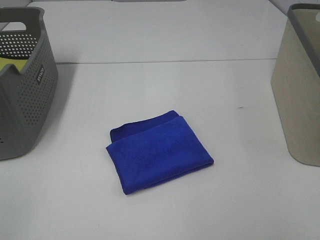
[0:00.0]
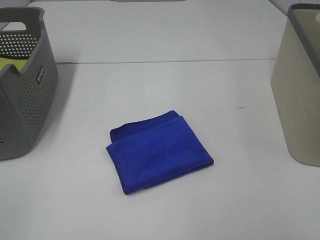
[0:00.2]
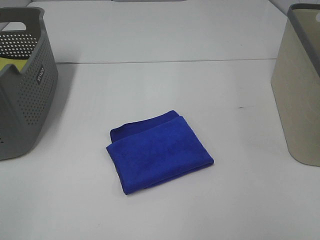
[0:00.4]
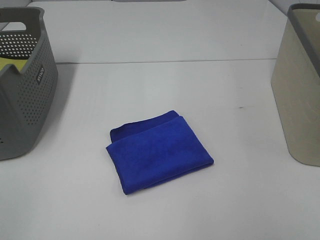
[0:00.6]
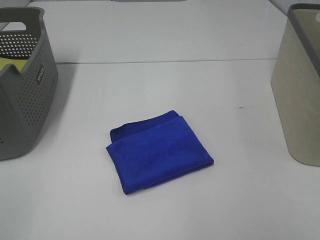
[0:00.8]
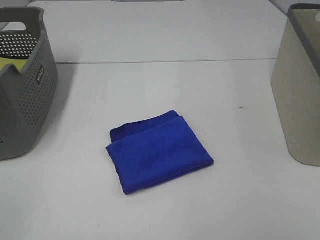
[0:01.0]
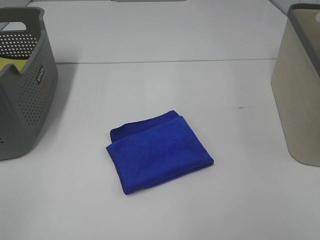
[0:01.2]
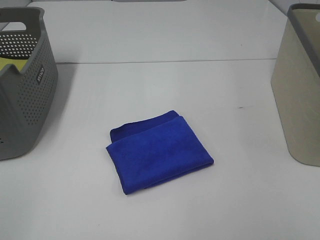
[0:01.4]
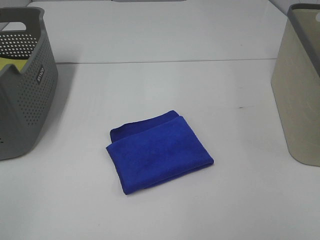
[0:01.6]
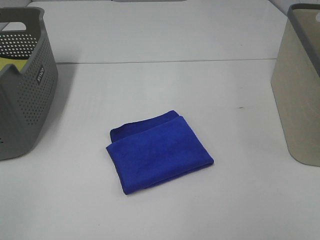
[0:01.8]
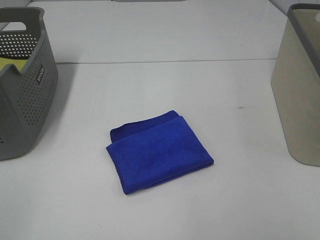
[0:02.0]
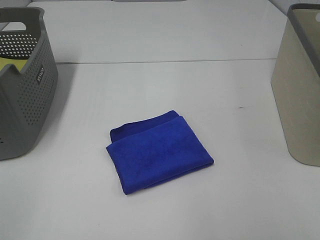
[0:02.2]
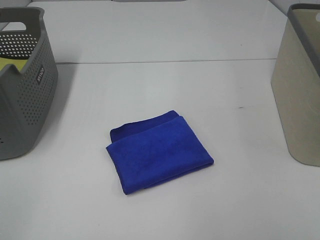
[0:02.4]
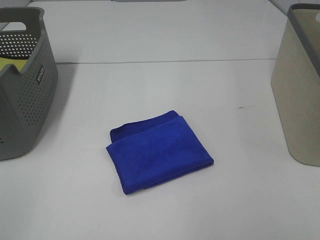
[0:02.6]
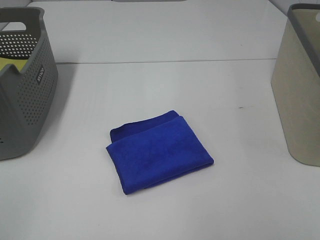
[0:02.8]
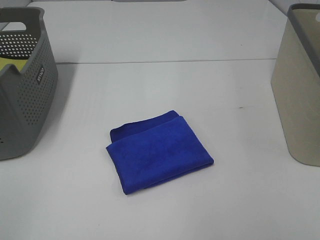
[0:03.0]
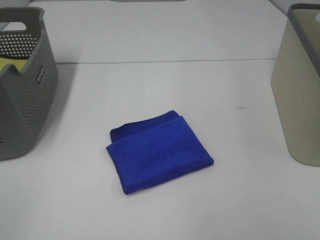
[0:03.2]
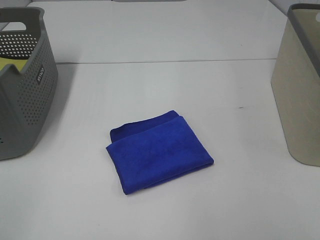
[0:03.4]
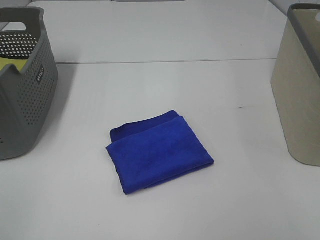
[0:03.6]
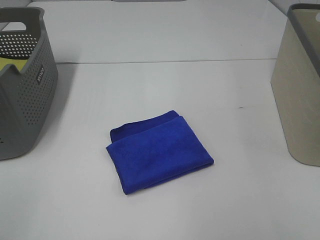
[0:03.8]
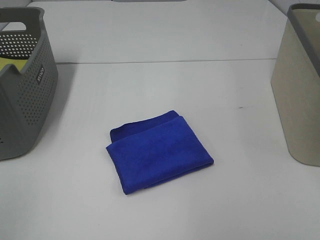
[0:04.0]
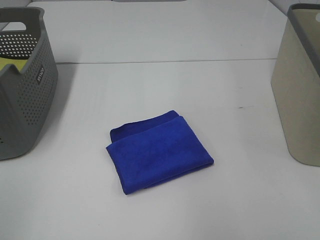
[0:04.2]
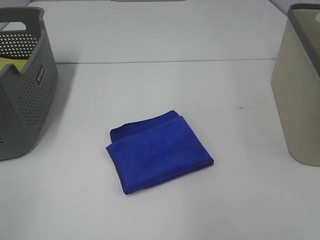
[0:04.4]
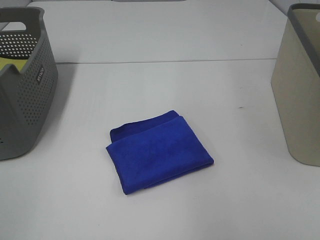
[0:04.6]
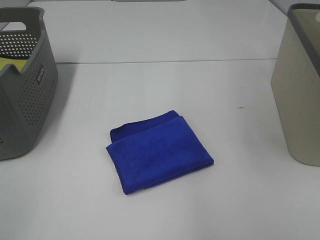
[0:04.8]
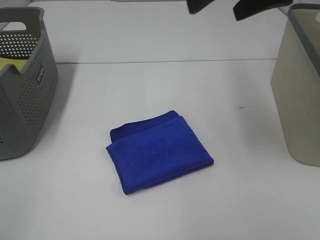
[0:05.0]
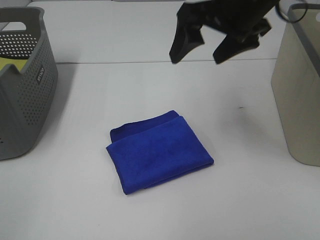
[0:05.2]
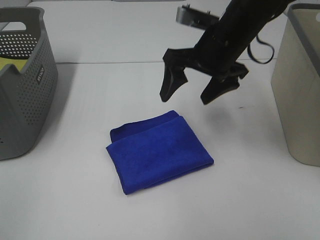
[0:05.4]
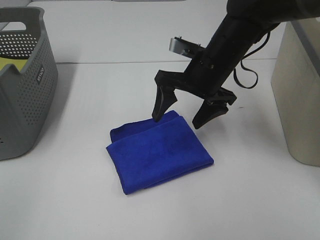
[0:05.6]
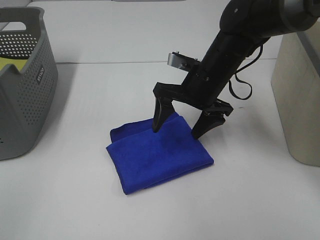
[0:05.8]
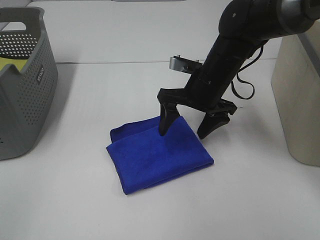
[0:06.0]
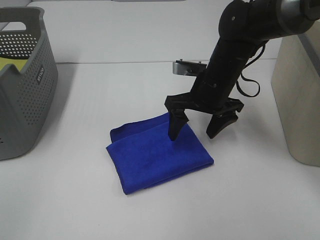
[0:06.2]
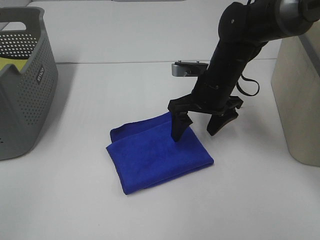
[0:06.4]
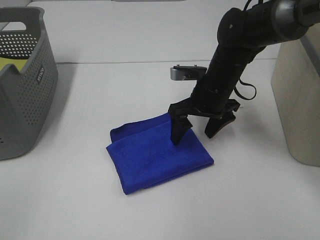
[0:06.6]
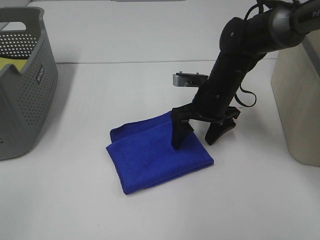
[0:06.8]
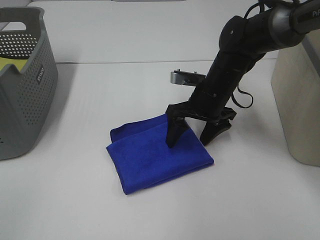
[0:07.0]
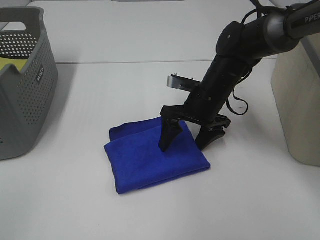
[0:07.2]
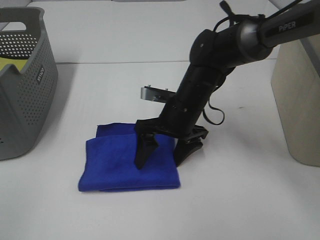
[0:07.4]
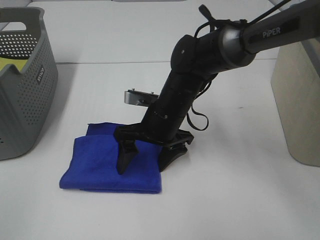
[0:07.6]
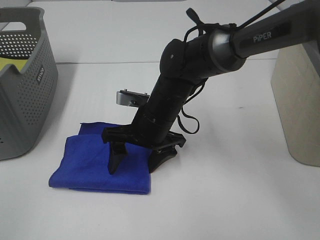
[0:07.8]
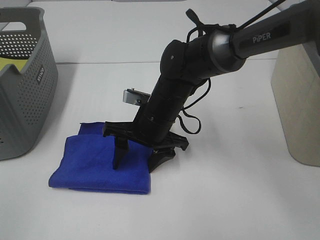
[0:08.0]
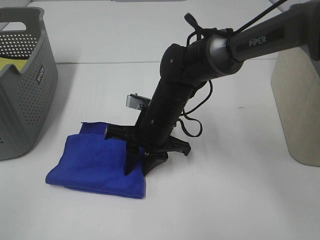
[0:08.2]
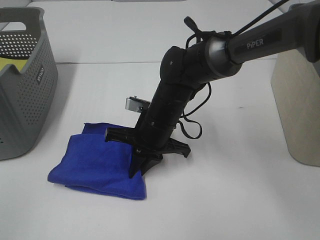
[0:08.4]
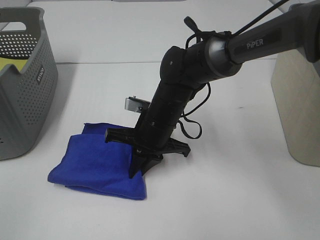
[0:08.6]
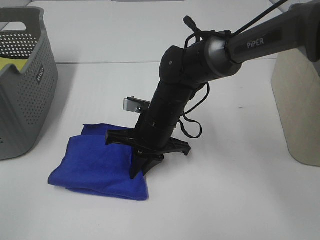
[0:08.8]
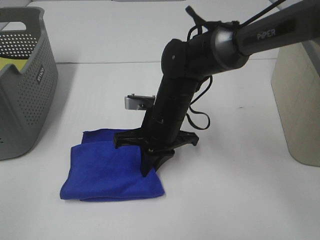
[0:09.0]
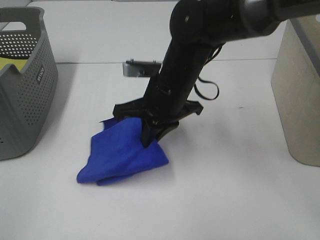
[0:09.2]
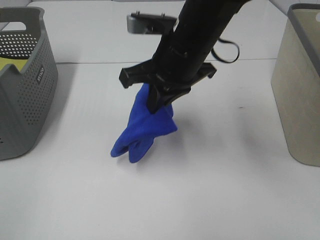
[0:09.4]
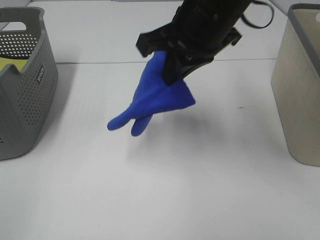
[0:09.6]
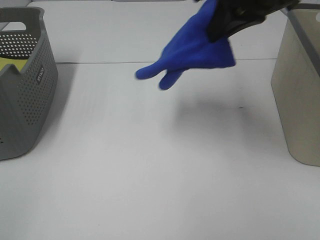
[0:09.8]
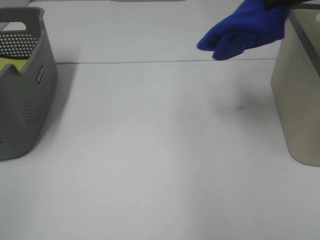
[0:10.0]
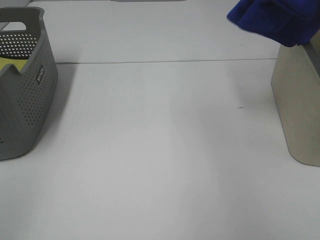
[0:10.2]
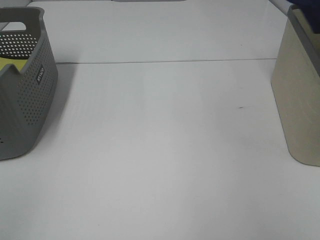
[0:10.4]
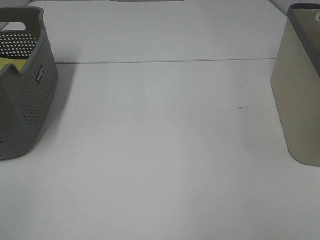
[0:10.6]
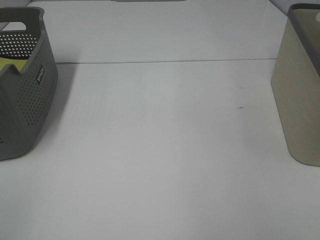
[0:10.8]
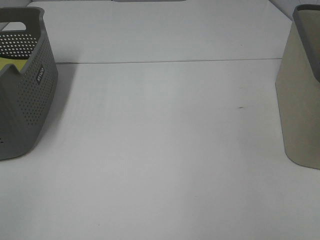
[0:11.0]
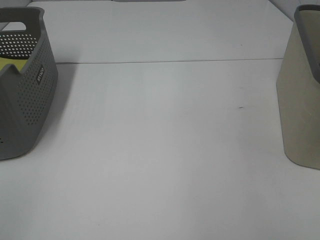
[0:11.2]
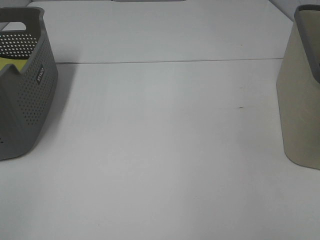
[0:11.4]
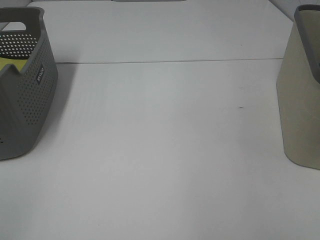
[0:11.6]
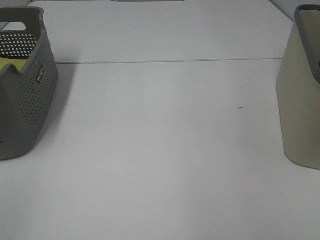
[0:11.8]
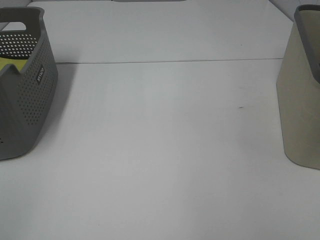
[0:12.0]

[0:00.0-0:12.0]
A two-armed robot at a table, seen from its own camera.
Step, 0:00.0 to 0:08.8: Right hand: grab the folded blue towel.
0:04.4 to 0:06.0: The right gripper is displaced downward, forward and to the left by some 40 cm.
0:06.0 to 0:07.6: The right gripper shifts roughly 10 cm to the left.
0:07.6 to 0:09.0: The right gripper closes.
0:09.0 to 0:10.4: The right gripper shifts about 40 cm to the right and upward.
0:10.4 to 0:12.0: The right gripper is displaced downward by approximately 15 cm, and opens up.

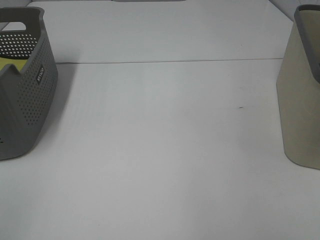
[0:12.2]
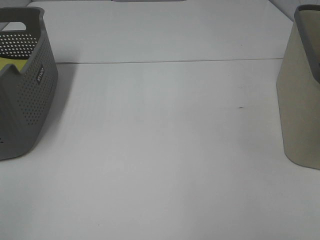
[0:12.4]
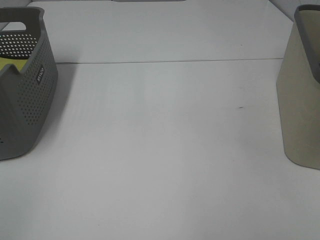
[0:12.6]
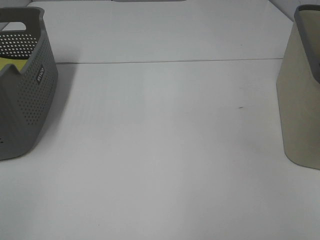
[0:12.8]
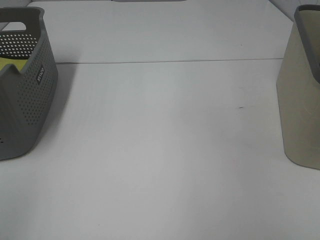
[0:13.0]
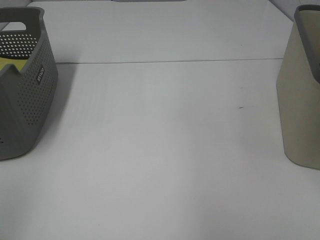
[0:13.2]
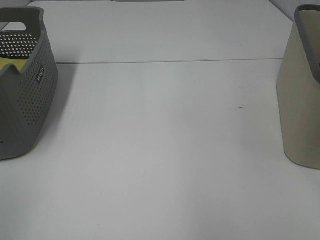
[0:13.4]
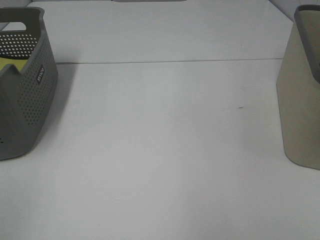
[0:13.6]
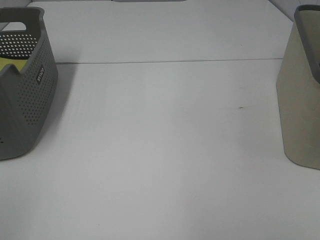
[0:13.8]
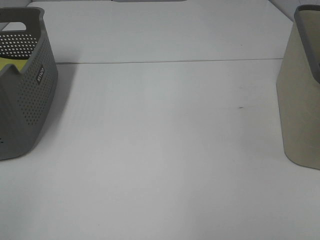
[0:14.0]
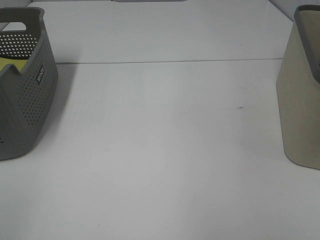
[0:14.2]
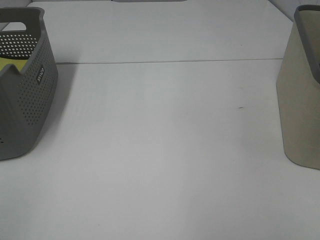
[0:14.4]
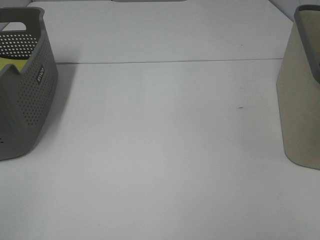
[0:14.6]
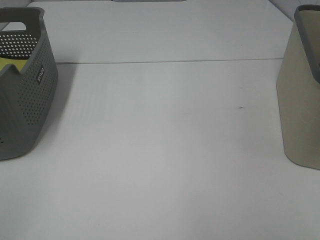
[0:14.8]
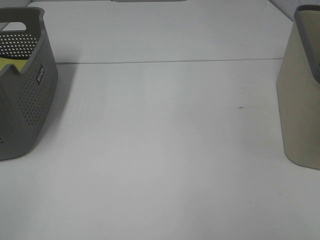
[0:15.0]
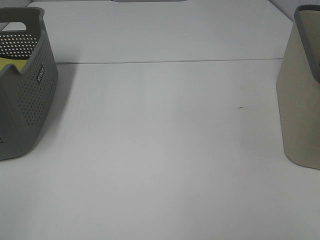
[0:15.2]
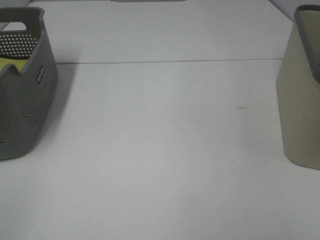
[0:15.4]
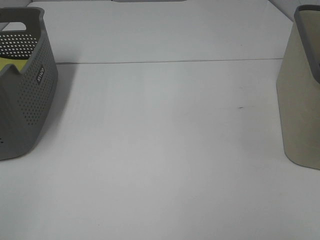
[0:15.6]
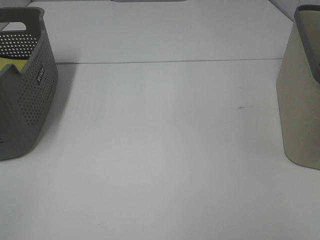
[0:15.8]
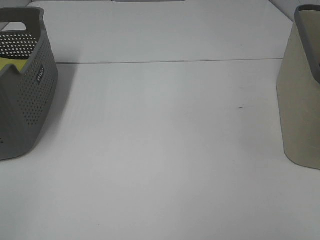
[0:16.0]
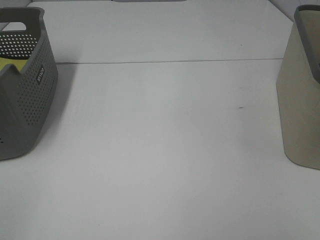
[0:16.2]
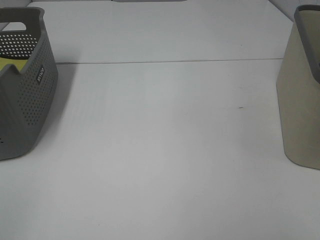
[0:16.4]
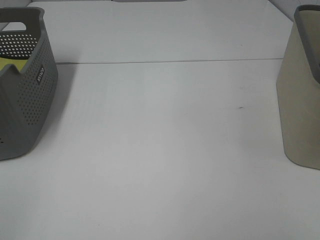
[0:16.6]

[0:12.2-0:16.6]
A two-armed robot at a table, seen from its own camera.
0:15.2 to 0:16.6: Both grippers stay about where they are.

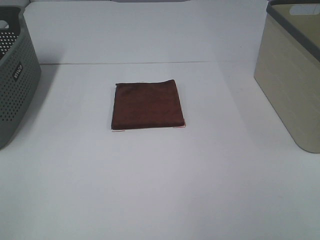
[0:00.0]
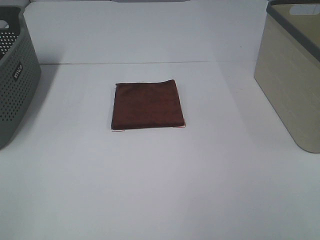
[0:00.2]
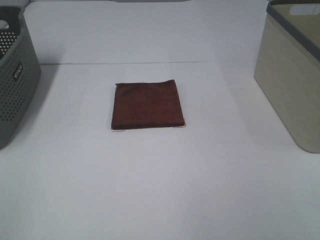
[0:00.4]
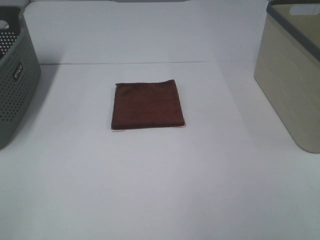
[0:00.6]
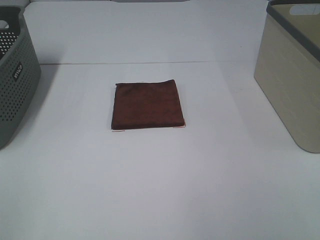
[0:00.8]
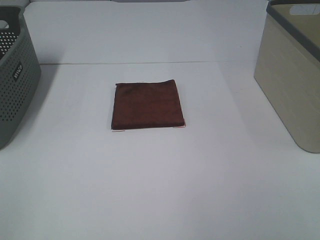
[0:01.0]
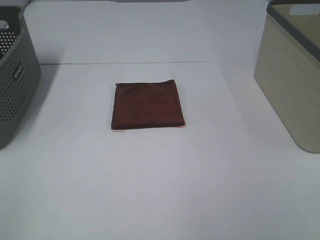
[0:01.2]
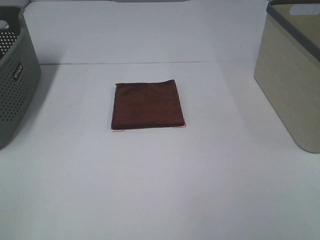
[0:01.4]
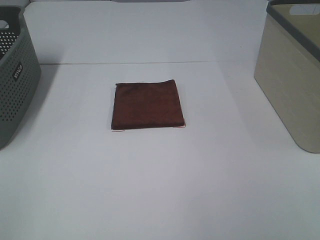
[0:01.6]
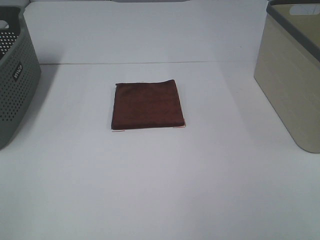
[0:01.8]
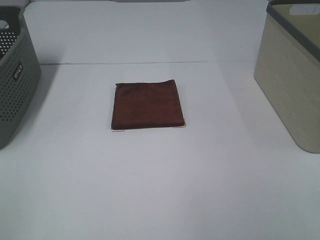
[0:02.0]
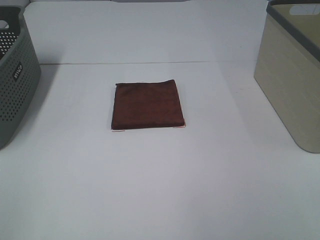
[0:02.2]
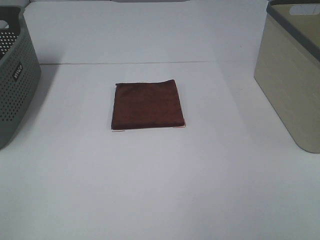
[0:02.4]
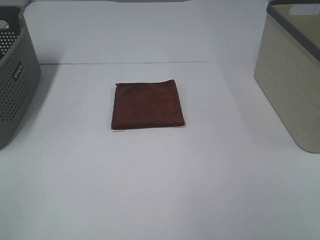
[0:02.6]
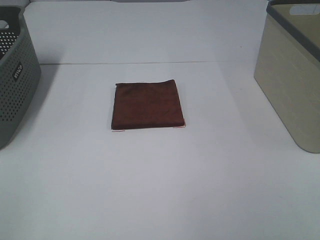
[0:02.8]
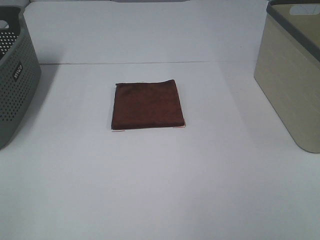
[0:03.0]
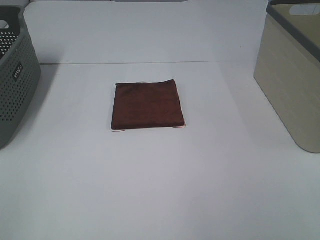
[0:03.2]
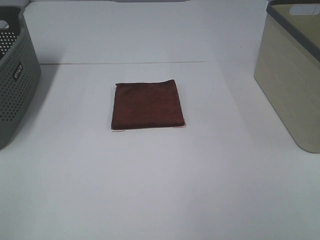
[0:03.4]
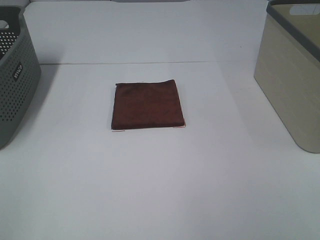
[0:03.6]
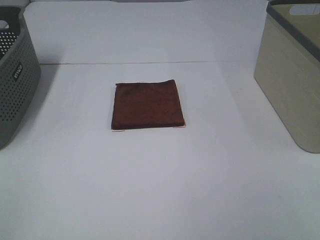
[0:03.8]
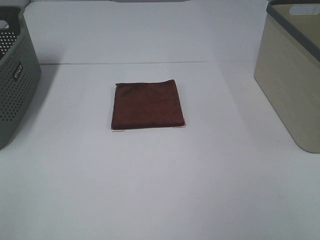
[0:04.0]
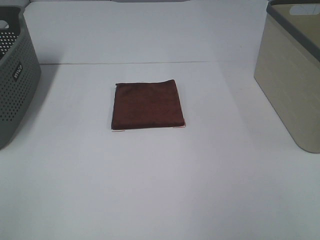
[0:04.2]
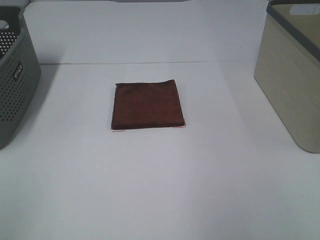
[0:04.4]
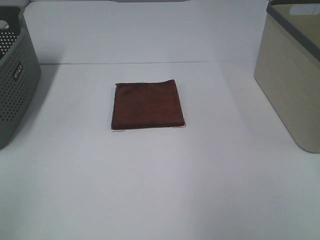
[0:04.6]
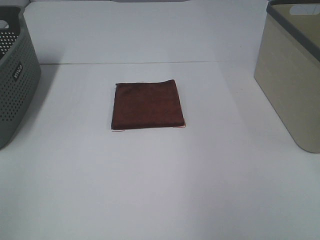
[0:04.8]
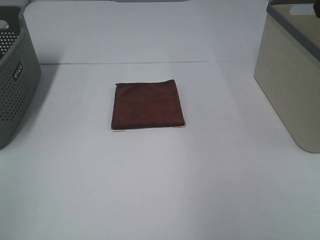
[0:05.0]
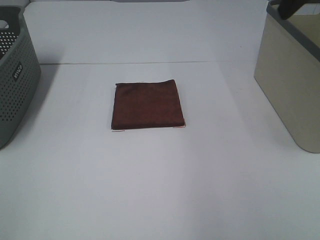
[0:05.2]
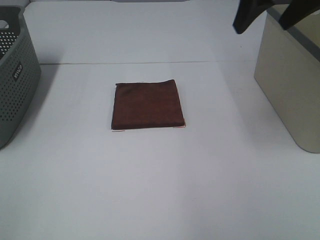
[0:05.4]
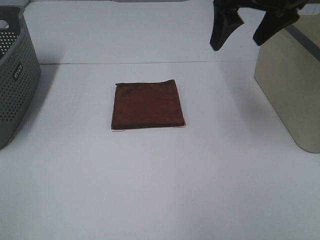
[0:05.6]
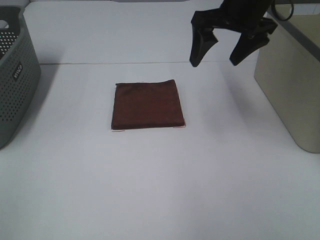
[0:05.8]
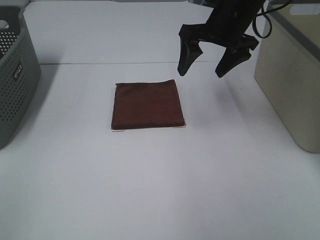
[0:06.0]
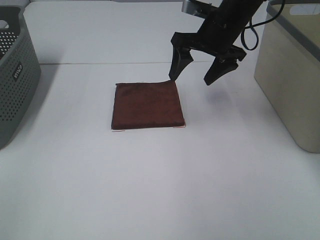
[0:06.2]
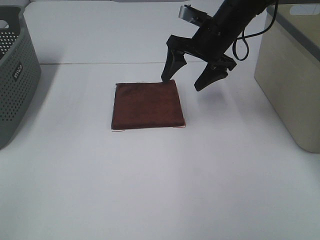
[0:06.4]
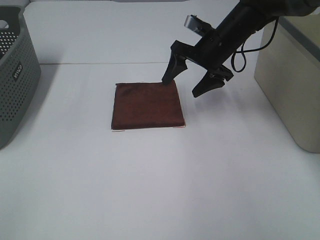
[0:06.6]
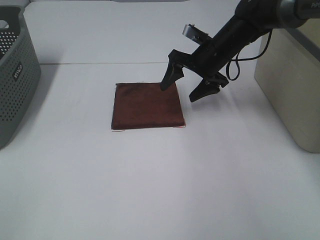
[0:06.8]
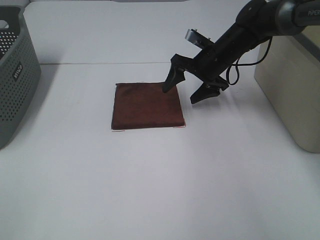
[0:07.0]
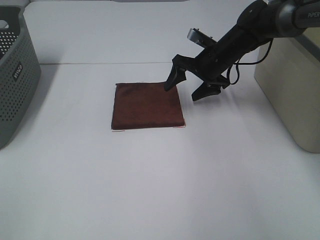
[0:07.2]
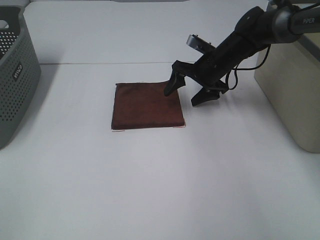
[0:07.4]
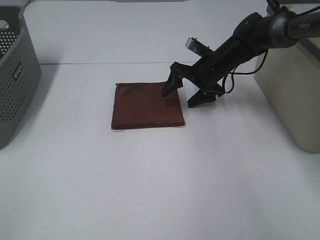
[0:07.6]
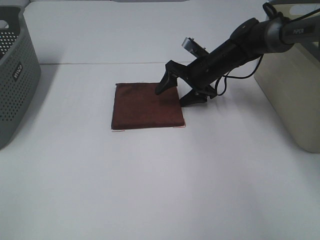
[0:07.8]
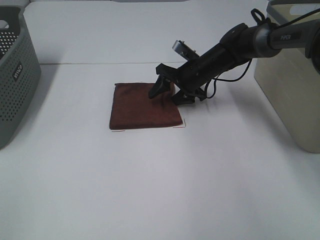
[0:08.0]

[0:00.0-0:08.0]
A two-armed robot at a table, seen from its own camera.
0:00.0 to 0:03.2: Both grippers stay put.
0:04.8 to 0:06.4: The right gripper goes about 35 cm forward, downward and to the left.
0:06.4 to 0:08.0: The right gripper goes some 10 cm downward.
